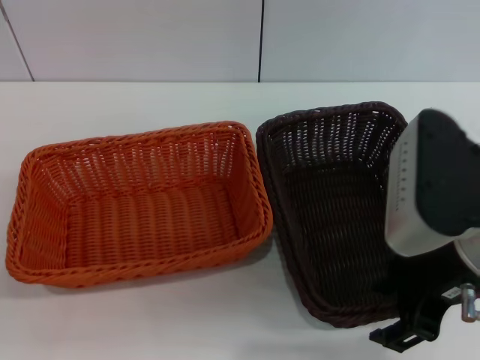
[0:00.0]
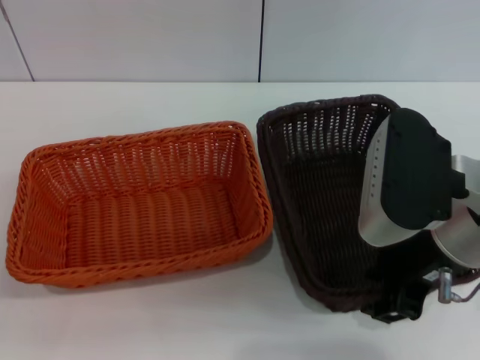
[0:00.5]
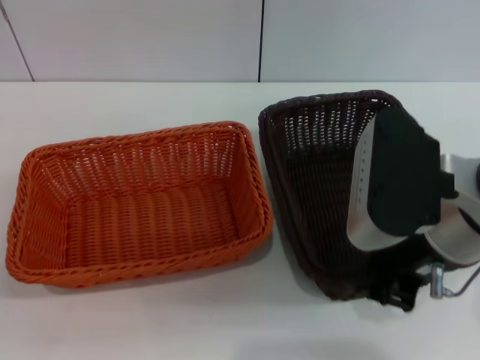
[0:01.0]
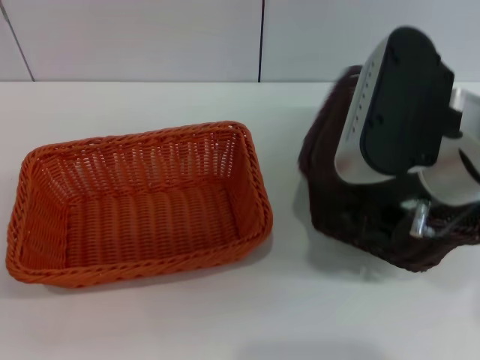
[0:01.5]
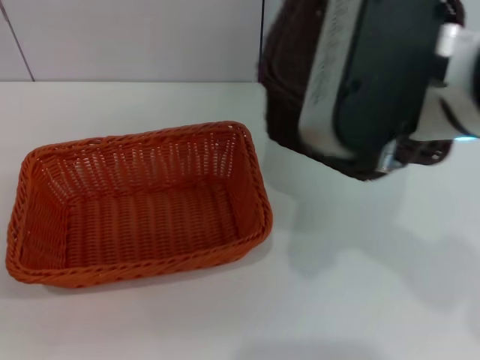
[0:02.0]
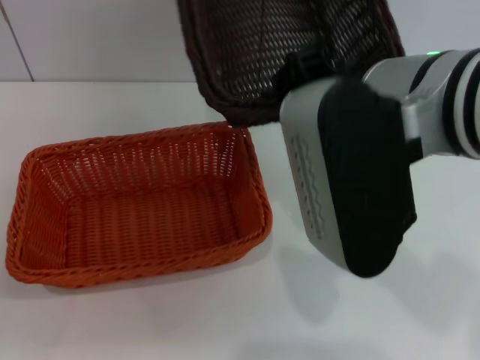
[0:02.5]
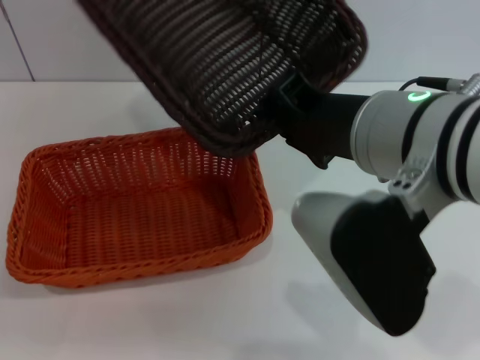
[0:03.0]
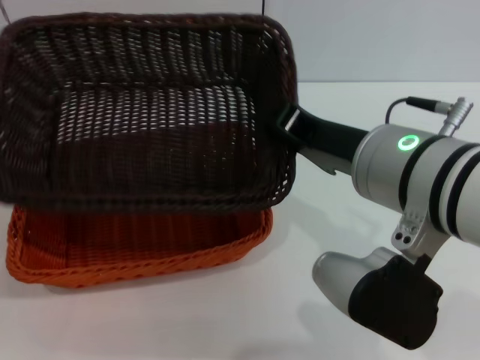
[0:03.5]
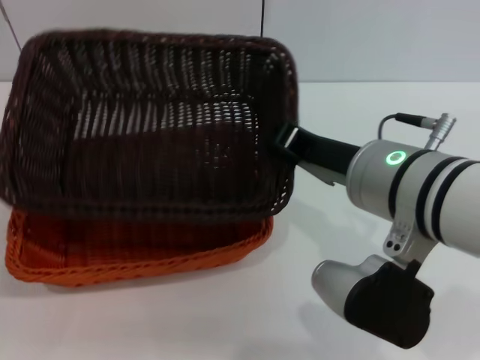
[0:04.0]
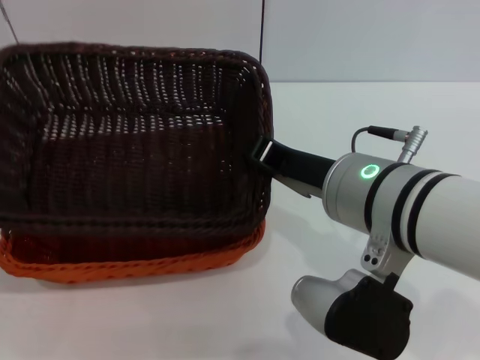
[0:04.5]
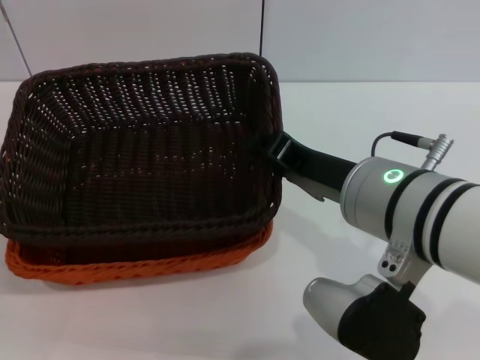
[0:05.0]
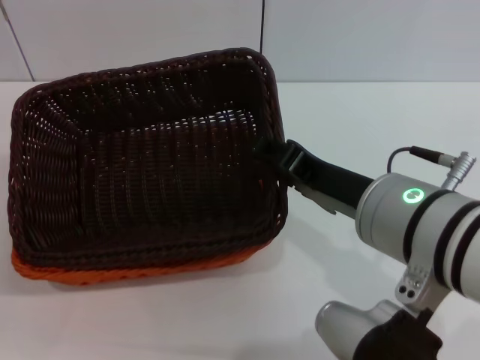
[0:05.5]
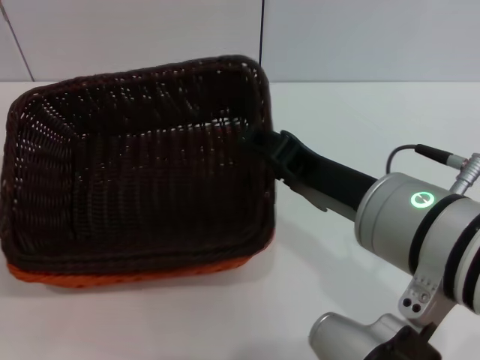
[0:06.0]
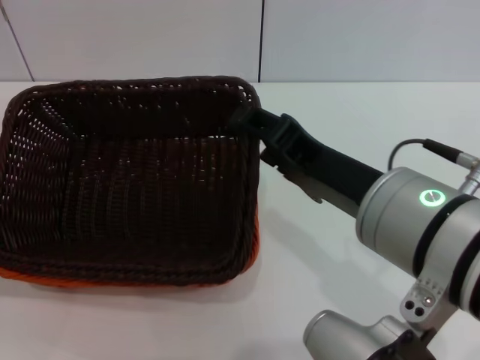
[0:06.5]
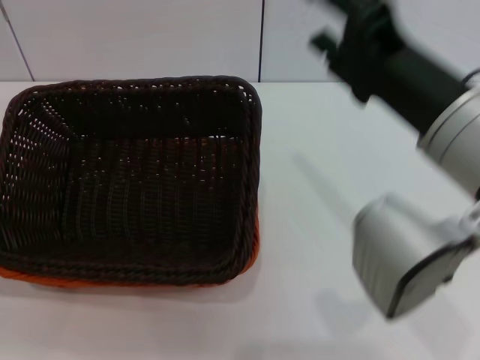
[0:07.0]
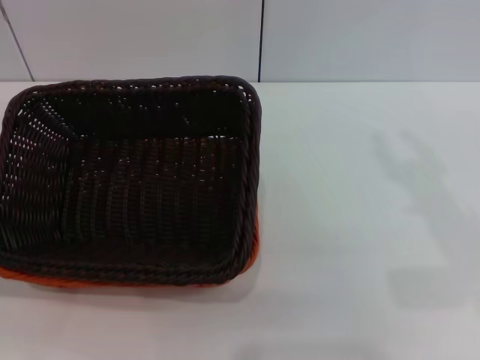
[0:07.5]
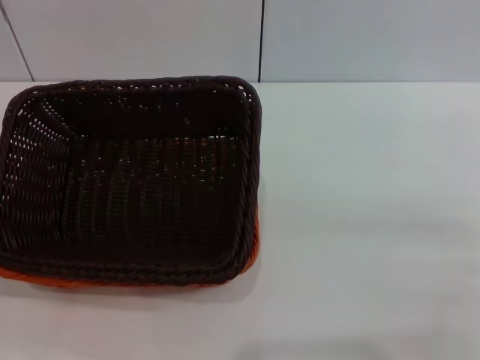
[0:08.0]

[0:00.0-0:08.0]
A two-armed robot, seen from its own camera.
Step, 0:01.5 to 0:06.5: Place the dark basket on the light basket with the right gripper.
0:00.0 to 0:02.0: The right gripper moves upward and to the left, approximately 10 cm, and closes.
0:02.0 to 0:04.0: The right gripper heads downward, covering about 10 cm.
0:04.0 to 0:06.0: The right gripper goes about 5 cm backward, and opens.
0:06.0 to 0:08.0: The right gripper goes approximately 25 cm to the right and downward.
